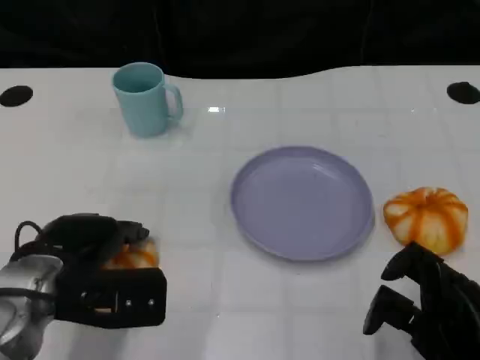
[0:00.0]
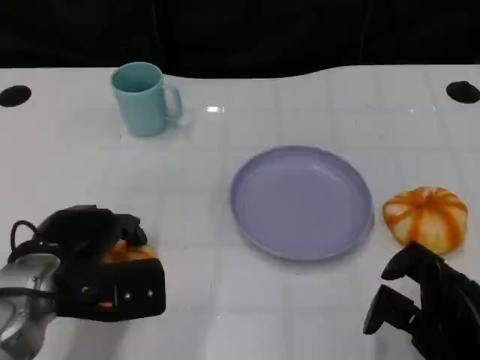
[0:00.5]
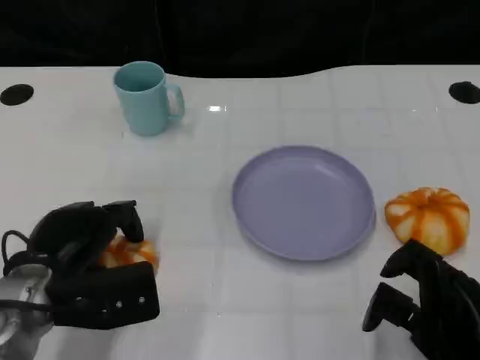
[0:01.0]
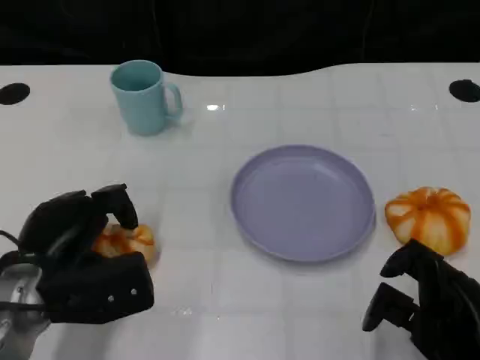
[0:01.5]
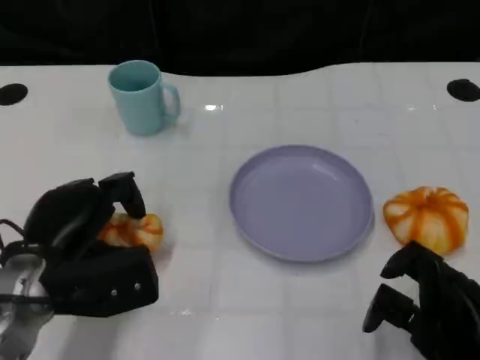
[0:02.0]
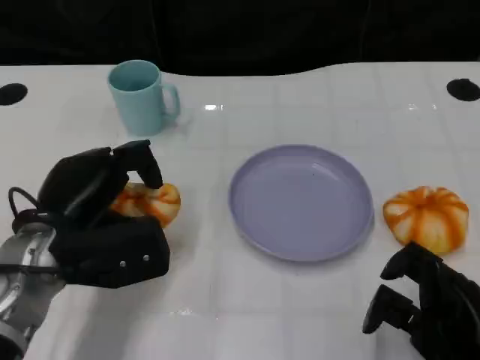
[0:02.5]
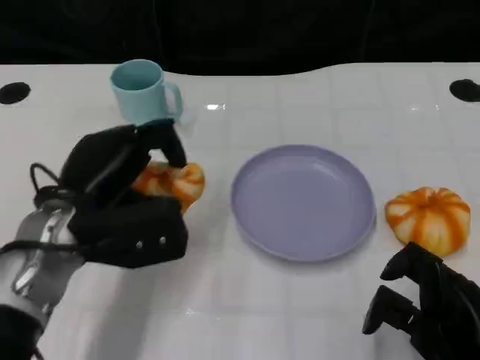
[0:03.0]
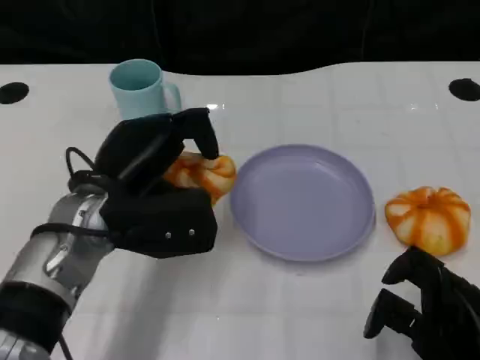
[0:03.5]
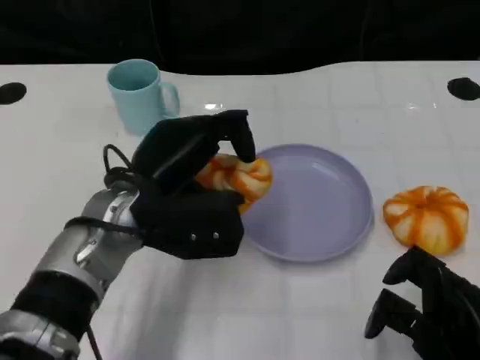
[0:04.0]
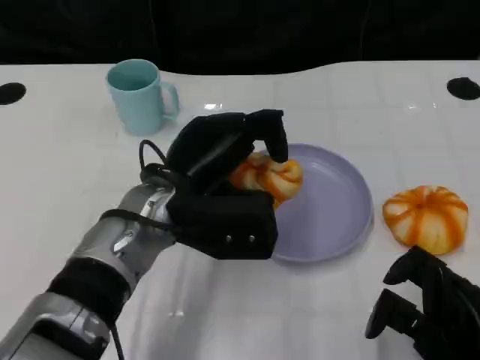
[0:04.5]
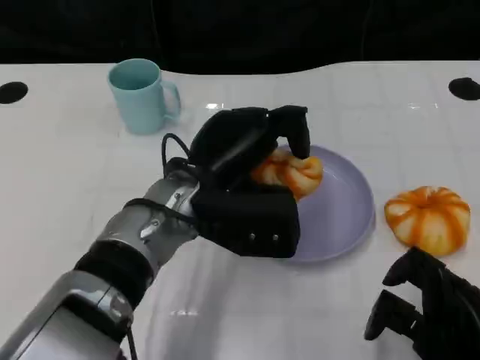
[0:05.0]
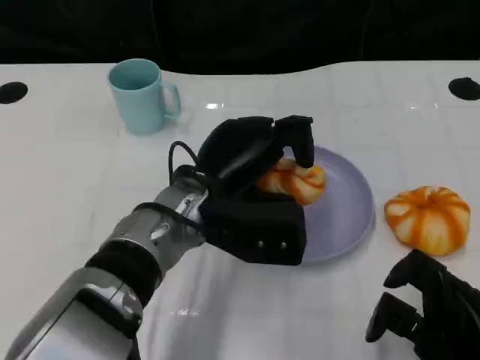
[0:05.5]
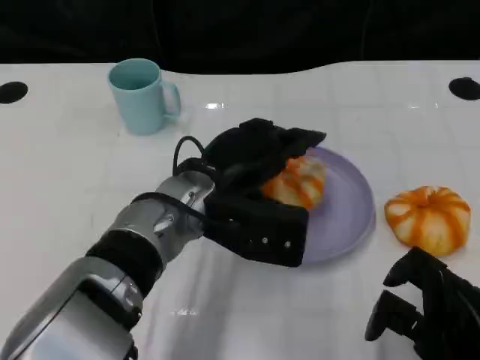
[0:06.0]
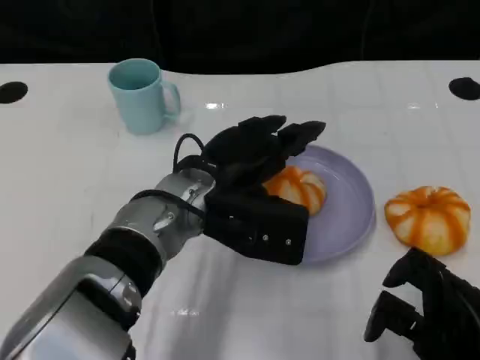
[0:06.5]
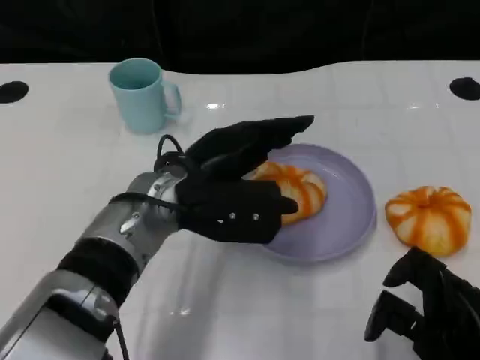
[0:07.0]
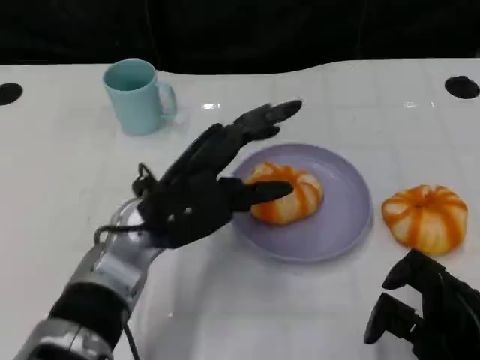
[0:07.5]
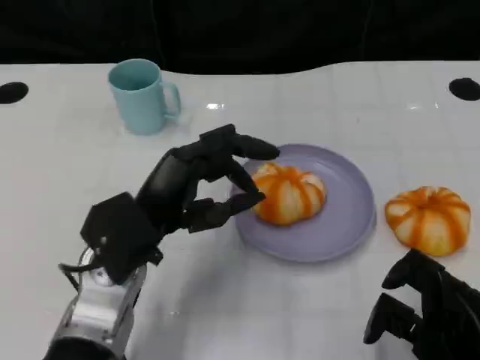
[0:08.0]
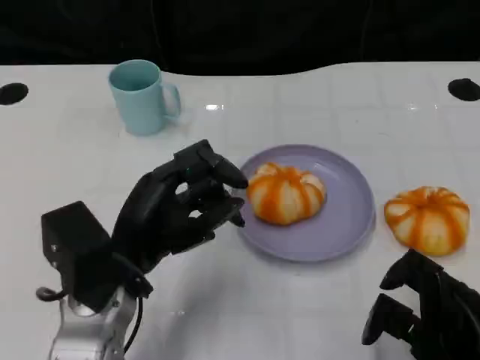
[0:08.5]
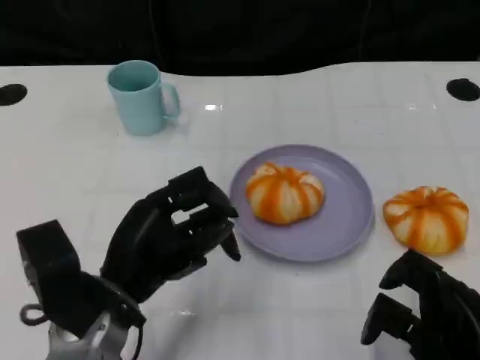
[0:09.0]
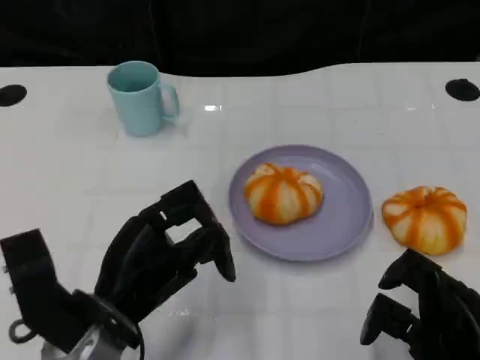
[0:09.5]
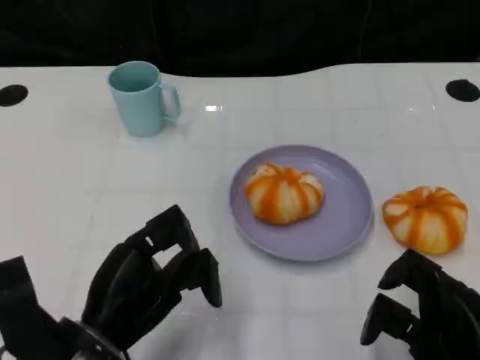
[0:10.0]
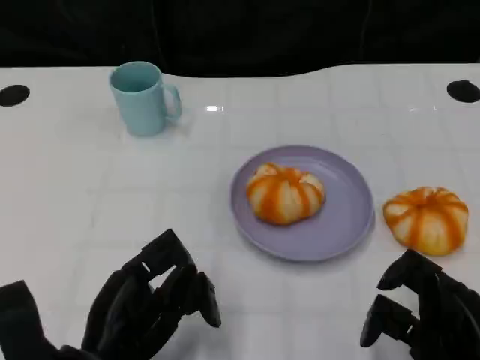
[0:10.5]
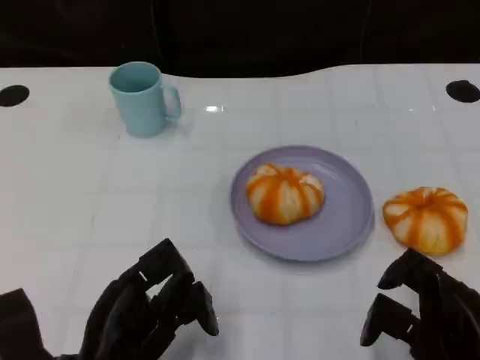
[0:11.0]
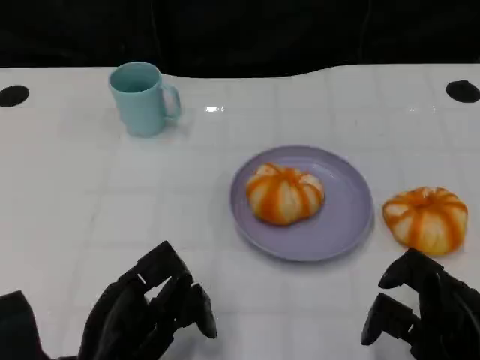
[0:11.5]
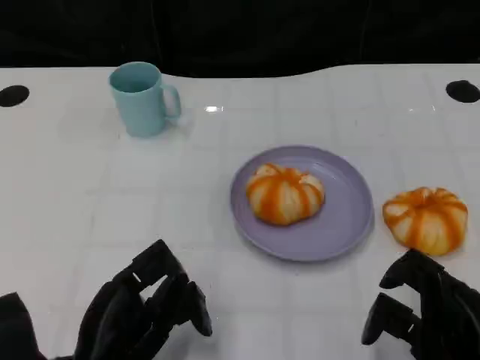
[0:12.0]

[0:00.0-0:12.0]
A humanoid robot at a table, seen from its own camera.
Task of the whole recording: Grasp the bread from the table and place it into the plate.
0:02.0 to 0:04.0: The left hand shifts some 10 cm to the right.
0:04.0 to 0:06.0: The left hand moves to the right, approximately 5 cm.
0:06.0 to 0:08.0: The left hand goes about 10 cm to the left.
0:08.0 to 0:10.0: The left hand moves backward, about 10 cm.
0:10.0 to 0:12.0: The hands move only a little.

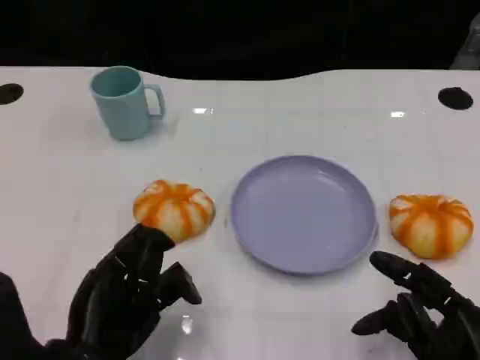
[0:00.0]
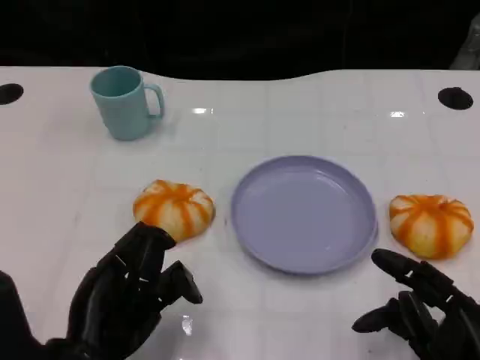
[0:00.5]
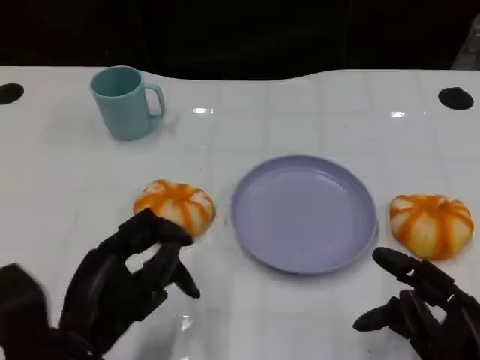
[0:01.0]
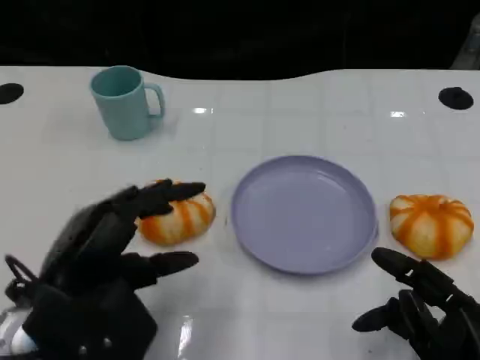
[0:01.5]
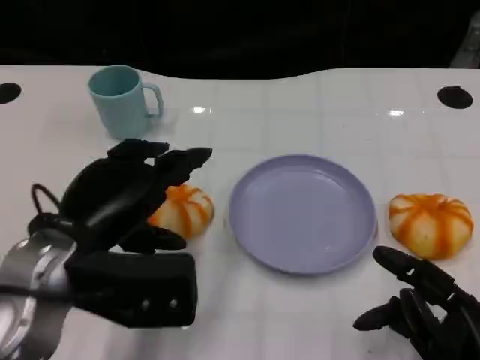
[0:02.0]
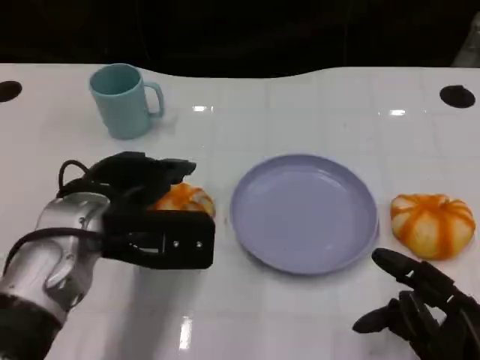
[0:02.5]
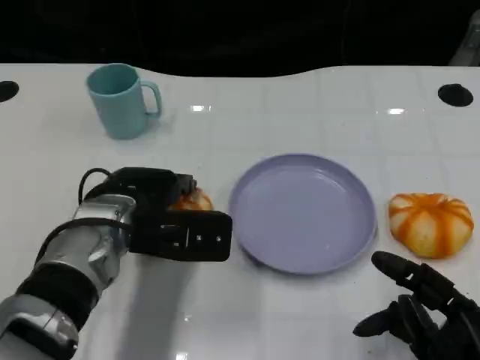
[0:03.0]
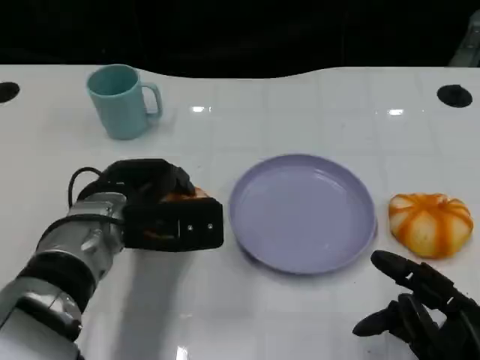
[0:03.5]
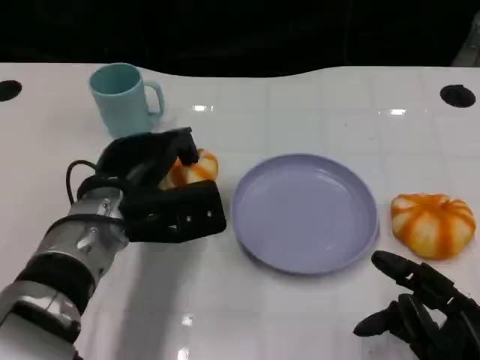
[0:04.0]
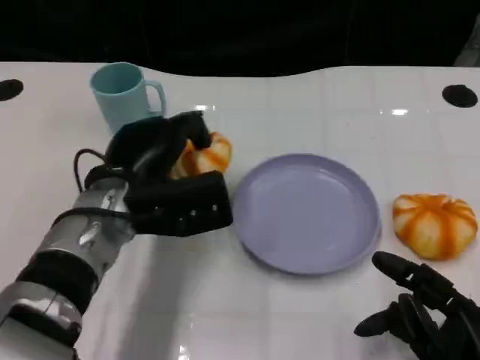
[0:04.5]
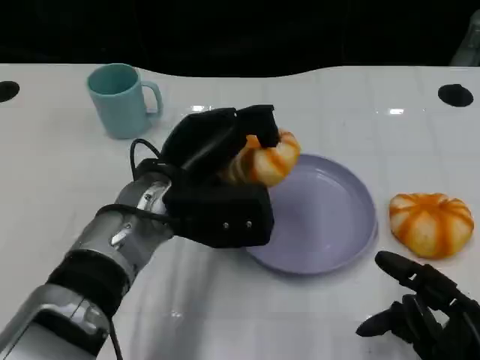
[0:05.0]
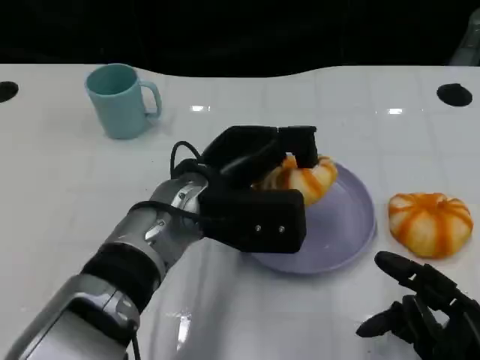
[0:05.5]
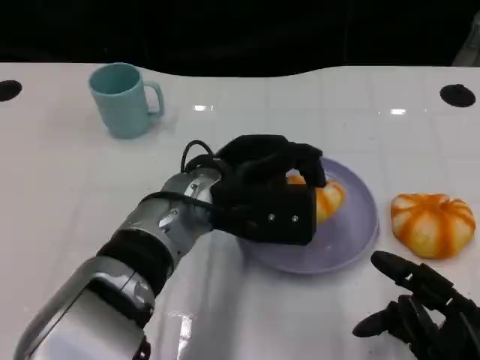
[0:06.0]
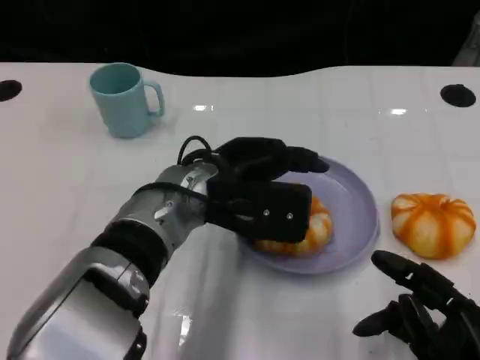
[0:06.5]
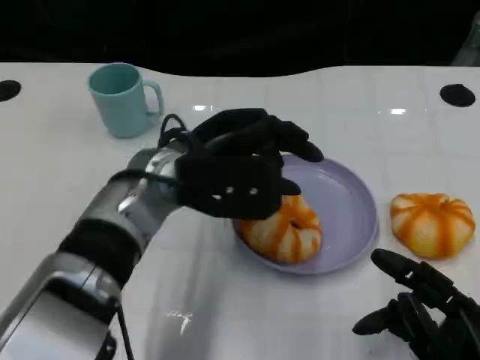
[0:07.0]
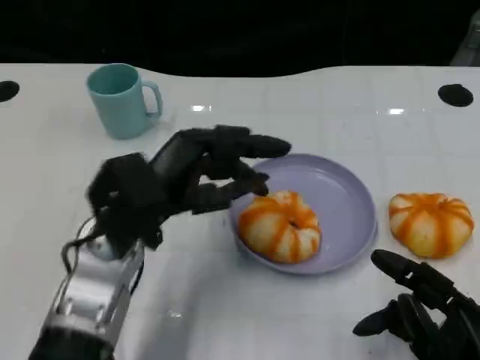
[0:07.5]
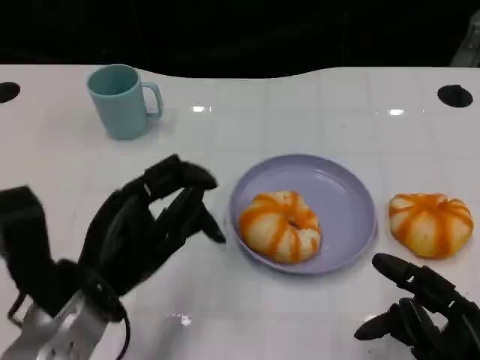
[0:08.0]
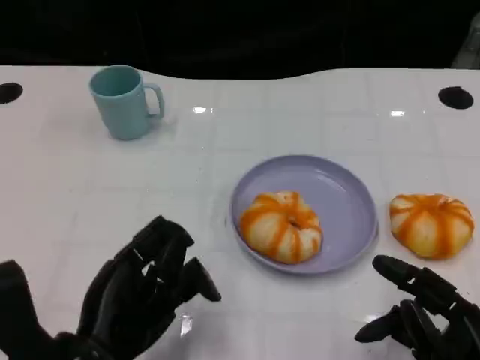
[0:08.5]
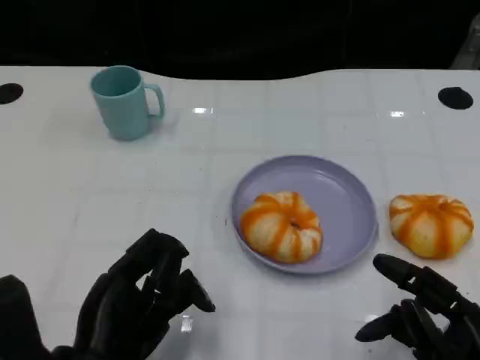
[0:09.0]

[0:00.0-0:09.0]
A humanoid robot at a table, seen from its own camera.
Task of the whole recording: Grasp the bread from the table and place it into the plate.
0:00.0 to 0:02.0: The left hand travels upward and forward by about 10 cm.
0:02.0 to 0:04.5: The left hand shifts some 10 cm forward.
0:04.5 to 0:07.0: The left hand shifts by roughly 5 cm.
0:07.0 to 0:09.0: The left hand shifts some 20 cm backward, to the left and downward.

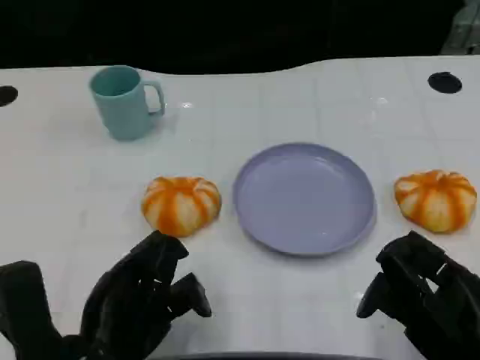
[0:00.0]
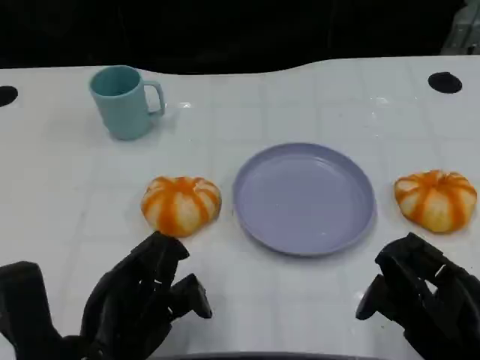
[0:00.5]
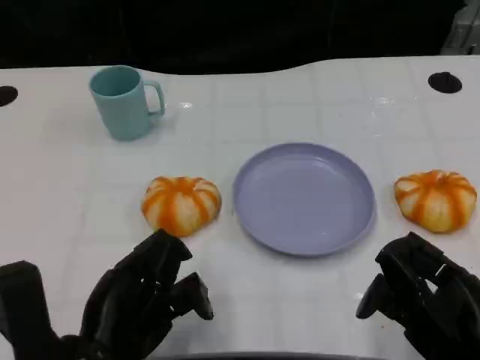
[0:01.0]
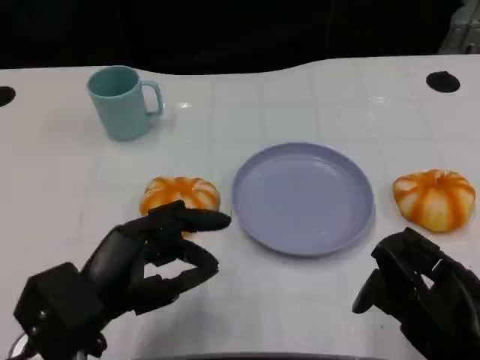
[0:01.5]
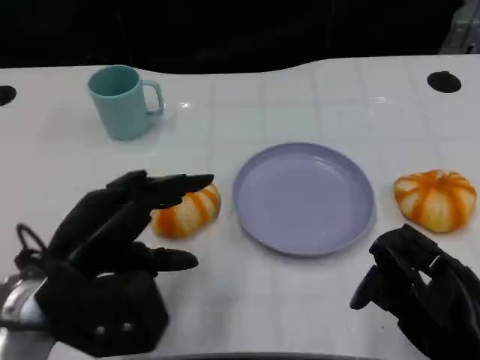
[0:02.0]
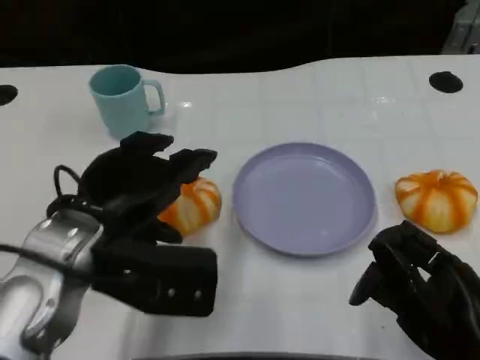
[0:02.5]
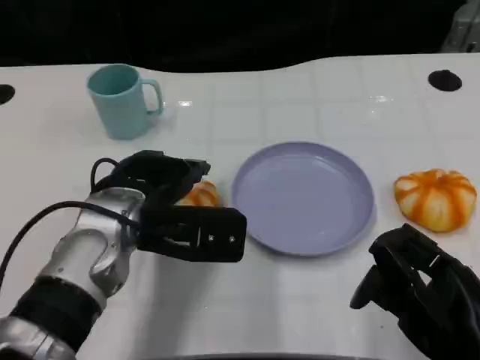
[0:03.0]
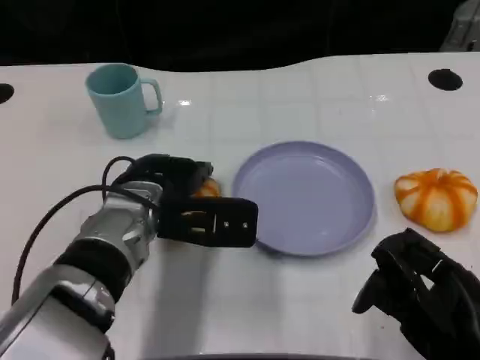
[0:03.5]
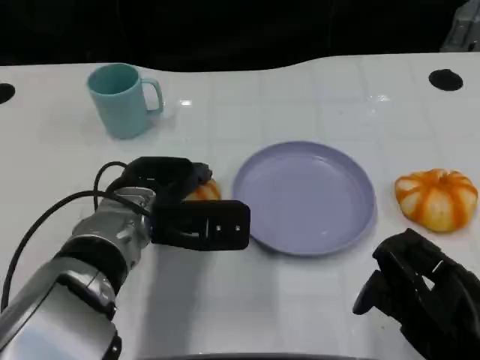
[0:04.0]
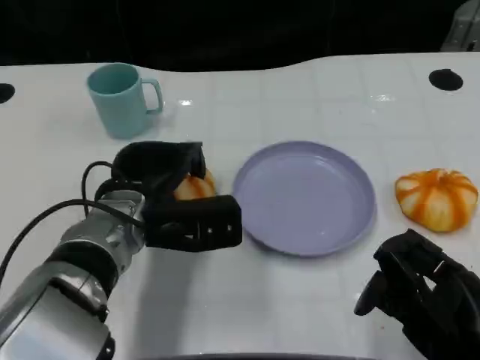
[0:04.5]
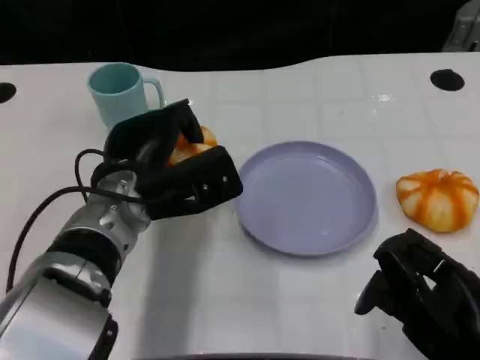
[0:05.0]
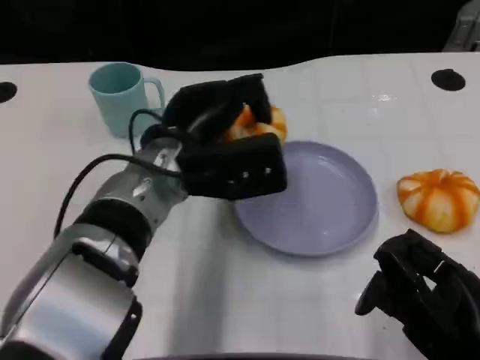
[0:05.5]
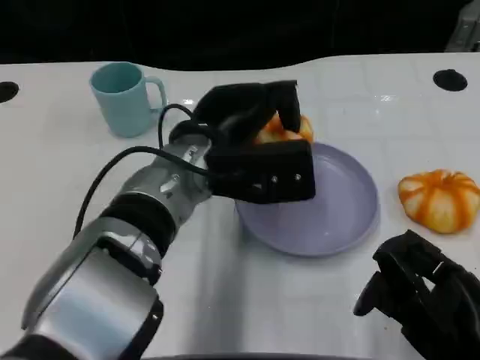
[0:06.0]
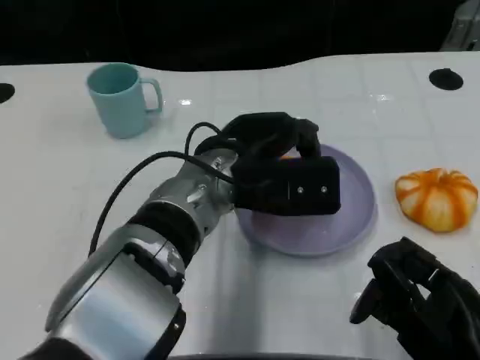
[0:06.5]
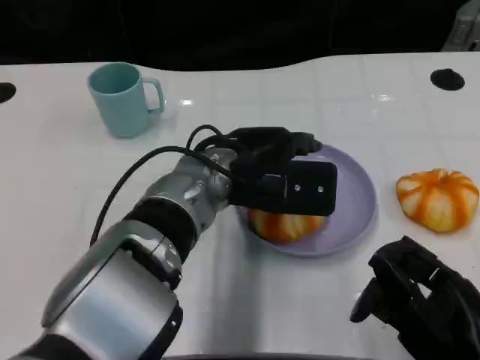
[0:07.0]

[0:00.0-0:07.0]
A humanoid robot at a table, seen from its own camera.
Task of the whole recording: Grasp the bread from the table and place it into the plate.
0:00.0 to 0:02.0: The left hand is displaced upward and forward by about 10 cm.
0:02.0 to 0:03.5: The left hand moves forward and to the right, some 15 cm.
0:05.0 to 0:07.0: The left hand shifts some 10 cm to the right.
